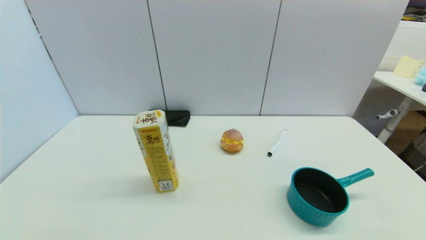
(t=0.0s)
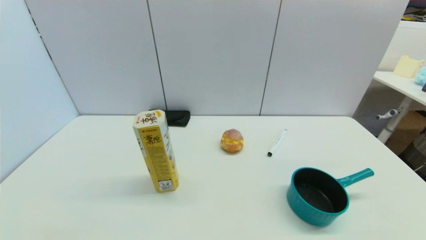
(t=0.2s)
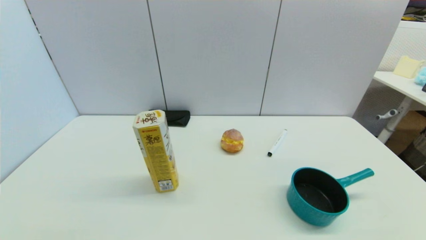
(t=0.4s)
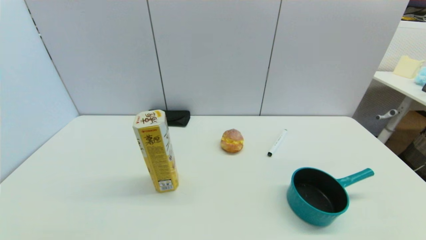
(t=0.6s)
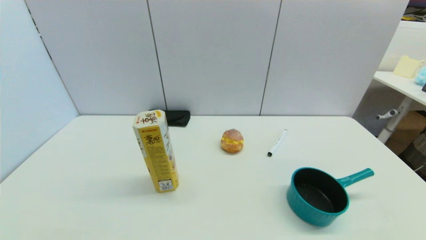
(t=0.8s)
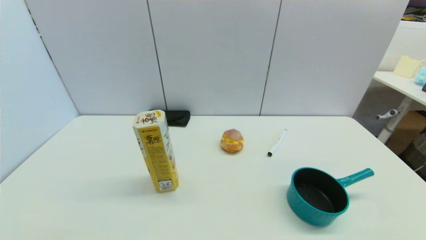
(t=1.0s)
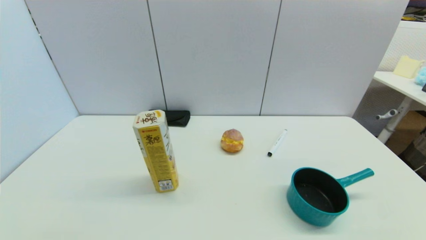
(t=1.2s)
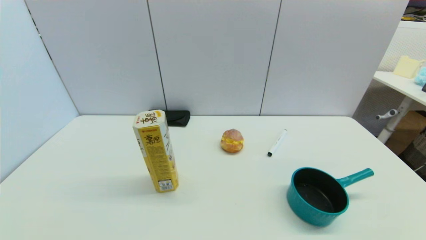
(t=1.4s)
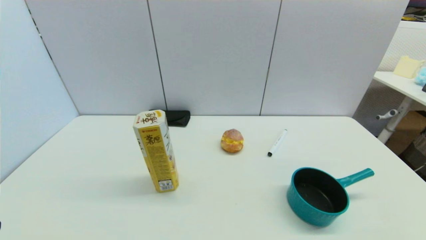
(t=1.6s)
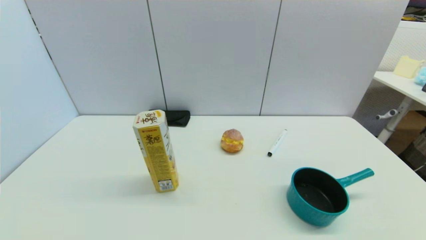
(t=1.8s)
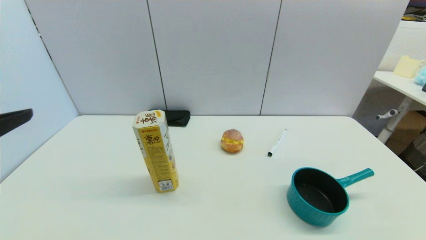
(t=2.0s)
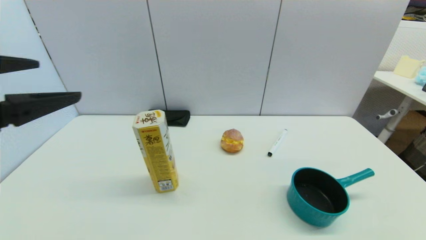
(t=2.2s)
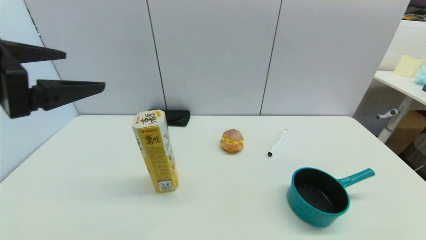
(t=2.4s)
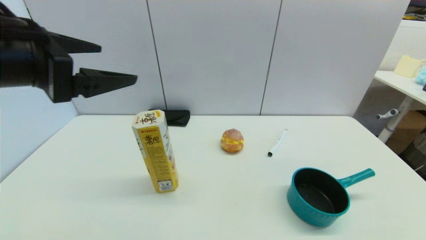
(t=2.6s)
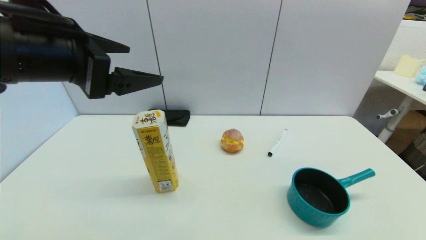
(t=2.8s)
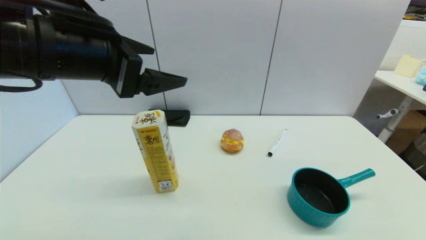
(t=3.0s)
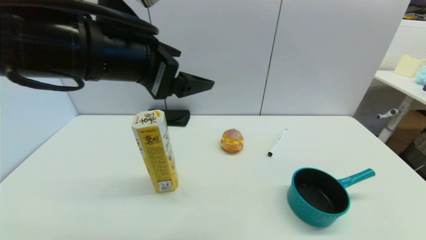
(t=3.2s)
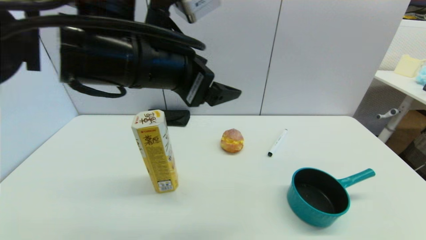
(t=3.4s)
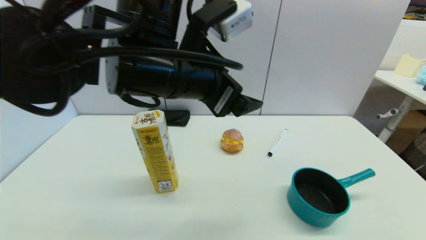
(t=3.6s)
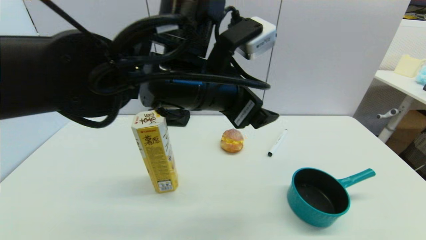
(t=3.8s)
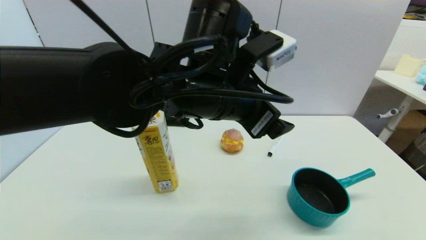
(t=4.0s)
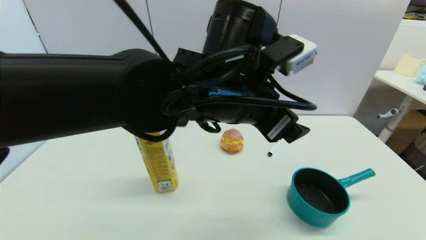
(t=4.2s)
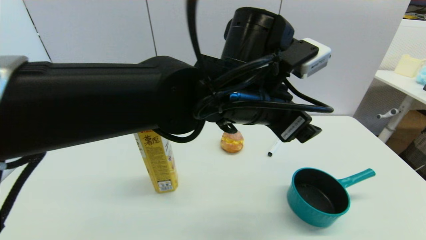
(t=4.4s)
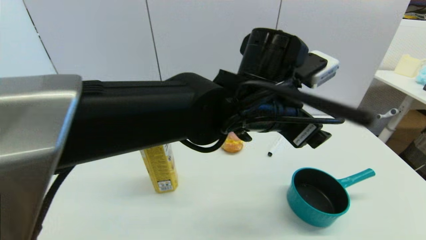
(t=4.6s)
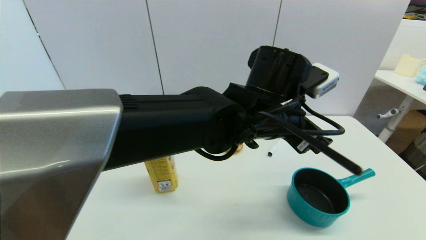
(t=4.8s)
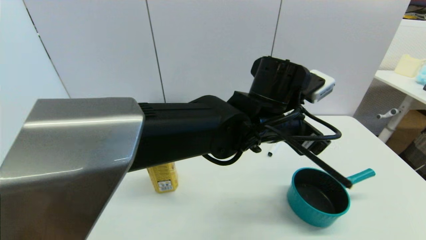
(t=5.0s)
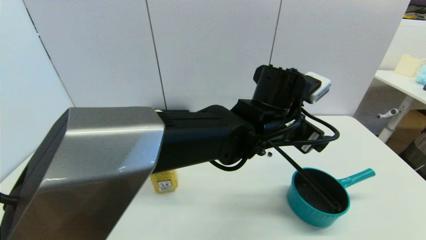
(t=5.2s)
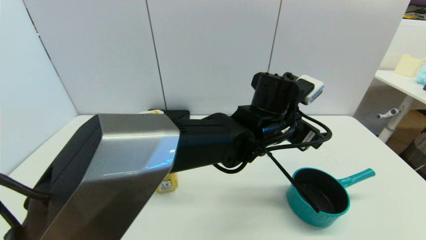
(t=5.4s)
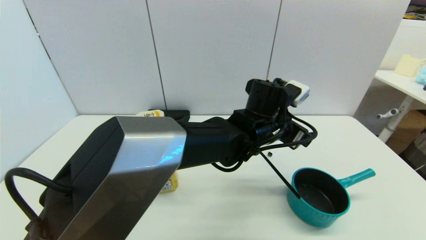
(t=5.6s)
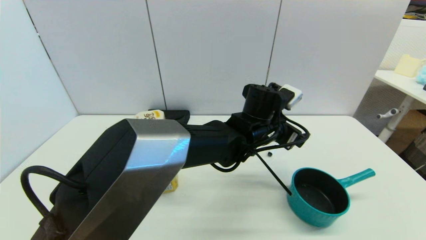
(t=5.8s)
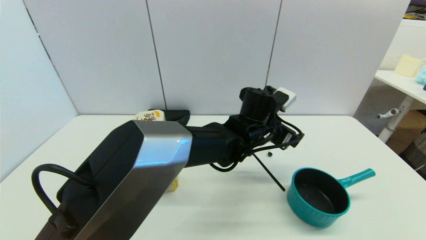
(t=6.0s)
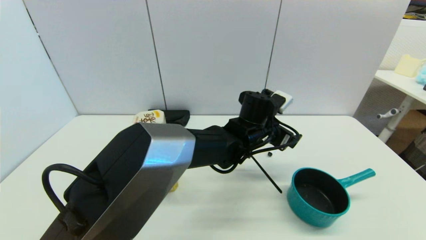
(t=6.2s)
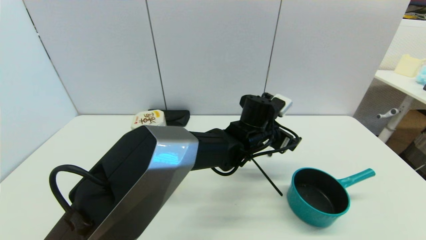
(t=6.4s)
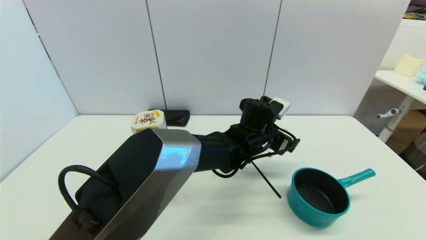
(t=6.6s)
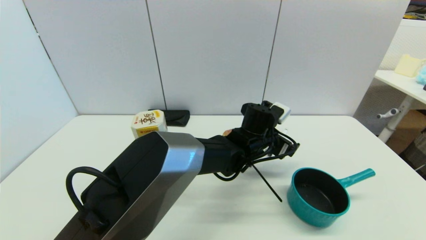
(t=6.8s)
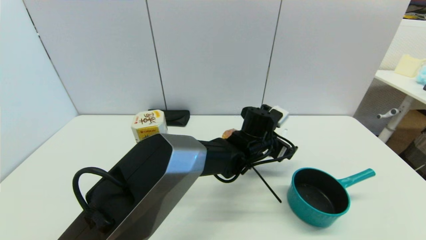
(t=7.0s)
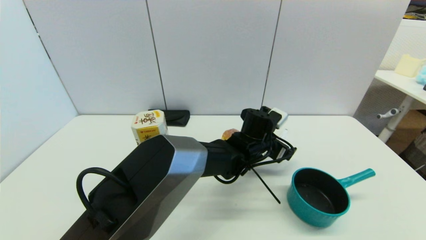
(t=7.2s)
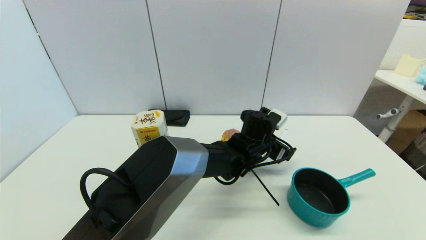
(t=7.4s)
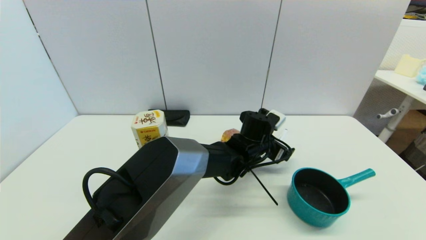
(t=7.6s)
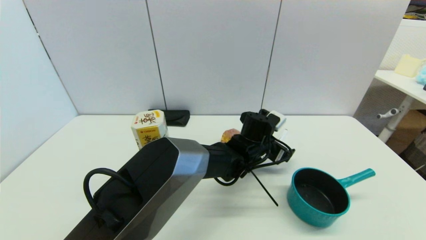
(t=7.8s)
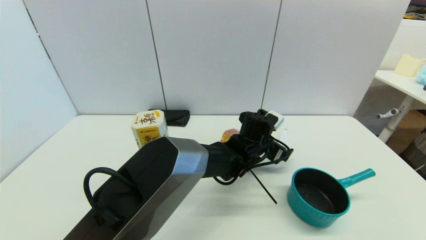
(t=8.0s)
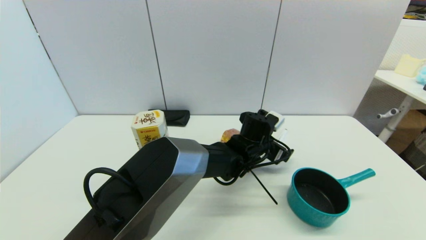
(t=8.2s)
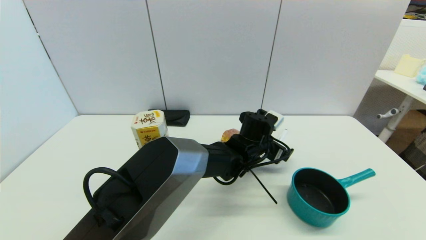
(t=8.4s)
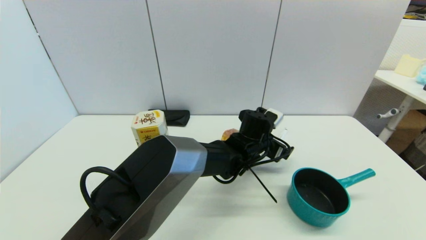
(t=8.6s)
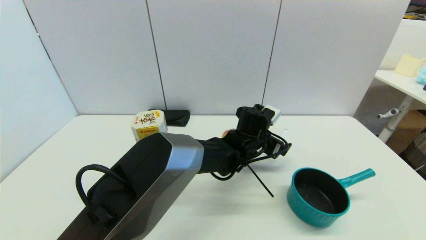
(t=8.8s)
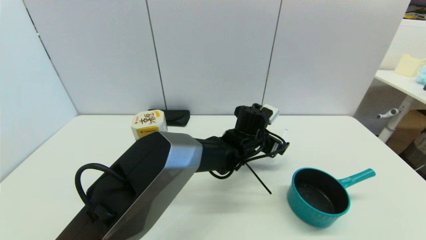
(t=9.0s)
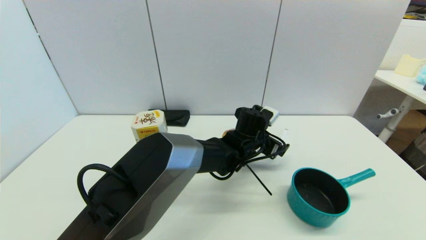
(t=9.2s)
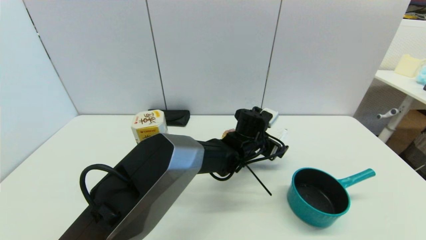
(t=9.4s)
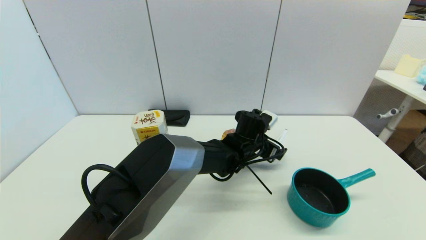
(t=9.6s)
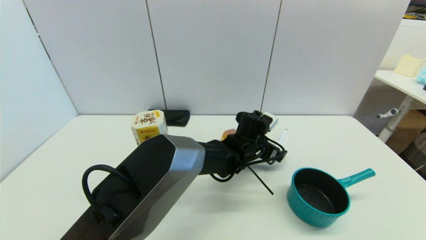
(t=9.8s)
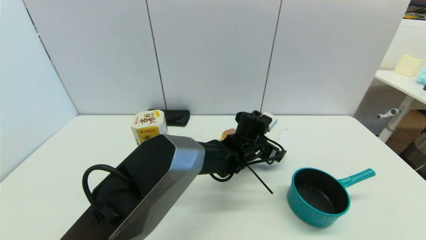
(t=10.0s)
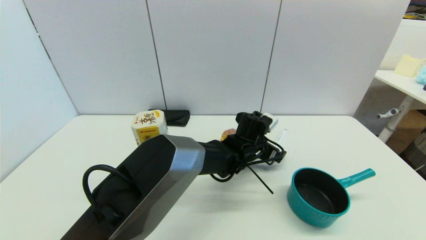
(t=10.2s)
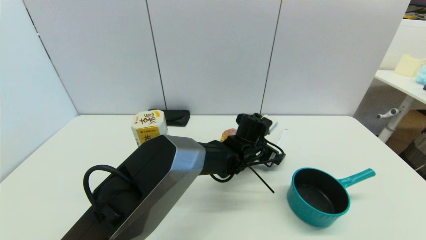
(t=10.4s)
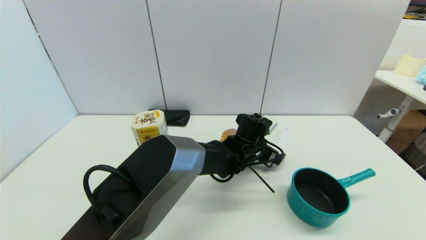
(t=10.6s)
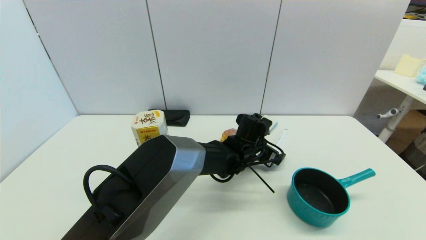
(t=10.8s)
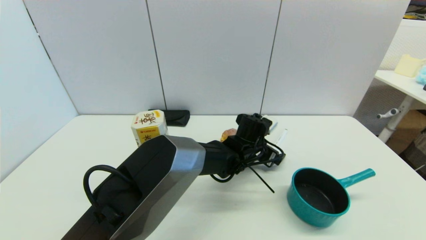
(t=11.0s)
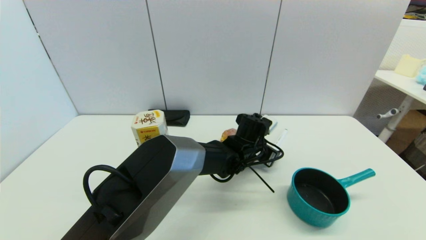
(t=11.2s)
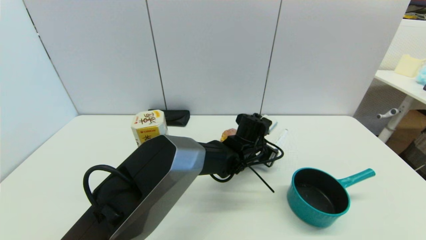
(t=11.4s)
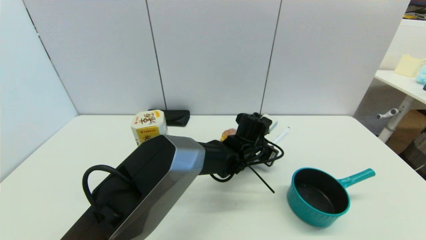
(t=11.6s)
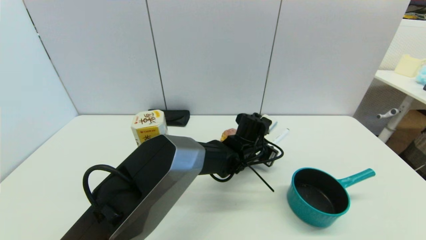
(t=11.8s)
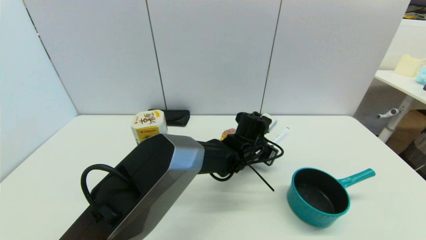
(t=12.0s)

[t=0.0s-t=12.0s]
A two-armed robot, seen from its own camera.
Task of the whole recording: put the black marker in the designated position.
Step, t=1.6s to t=11.6s: Grasp the Marker pen with left gripper.
t=1.6s to t=3.0s: The left gripper shifts some 30 cm forward, upward and to the right.
t=3.0s to t=4.4s: The left gripper goes some 20 cm to the right.
t=4.4s to t=6.0s: The left gripper is displaced downward and forward by approximately 15 cm.
t=6.0s to t=7.6s: The left gripper moves downward, about 5 cm.
t=7.6s to t=10.4s: The grippers stay close to where they were, moving slightly.
t=10.4s to t=12.0s: The left gripper closes.

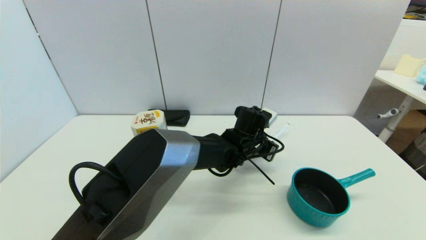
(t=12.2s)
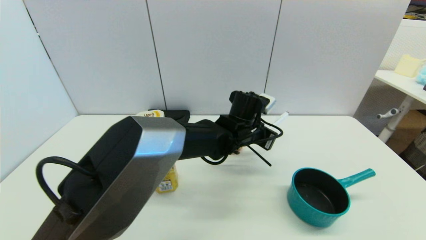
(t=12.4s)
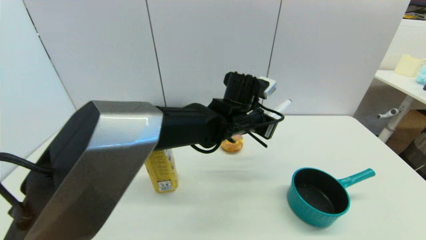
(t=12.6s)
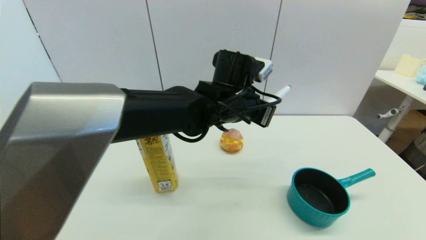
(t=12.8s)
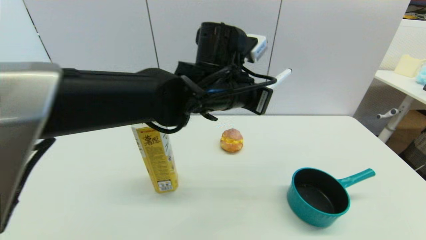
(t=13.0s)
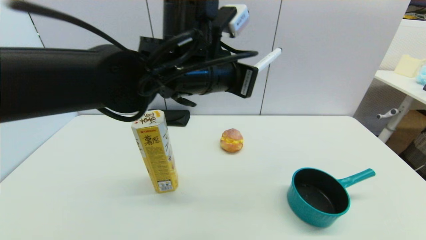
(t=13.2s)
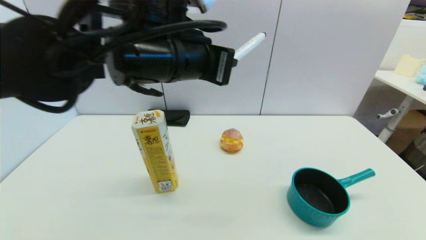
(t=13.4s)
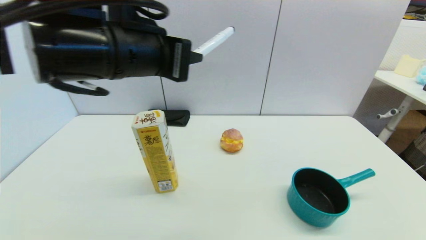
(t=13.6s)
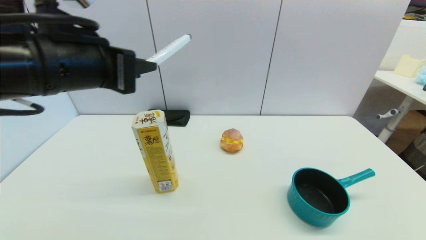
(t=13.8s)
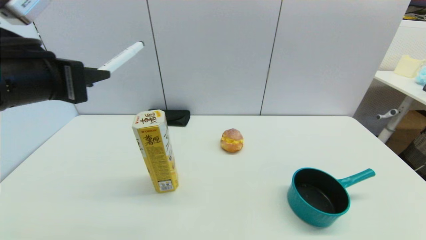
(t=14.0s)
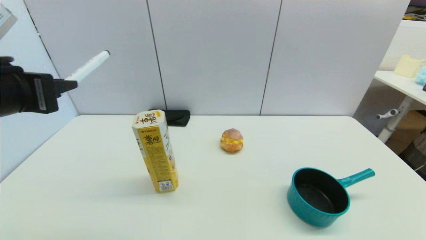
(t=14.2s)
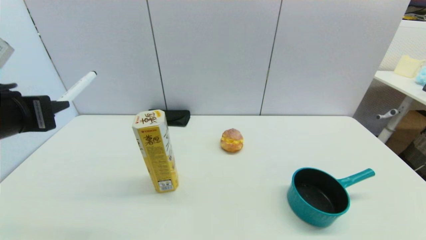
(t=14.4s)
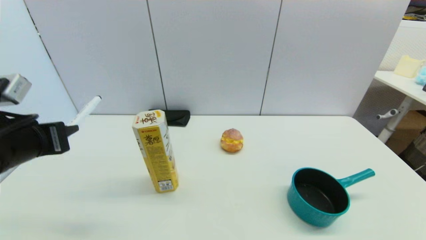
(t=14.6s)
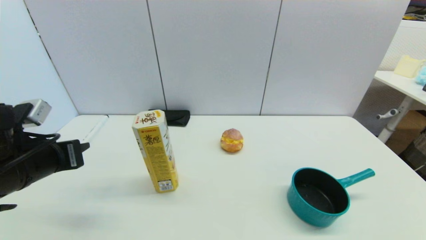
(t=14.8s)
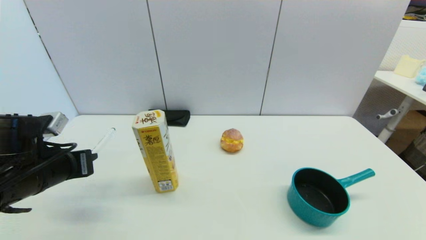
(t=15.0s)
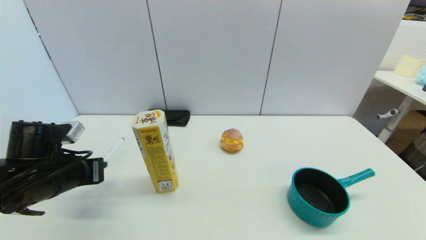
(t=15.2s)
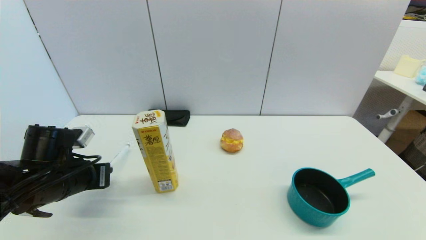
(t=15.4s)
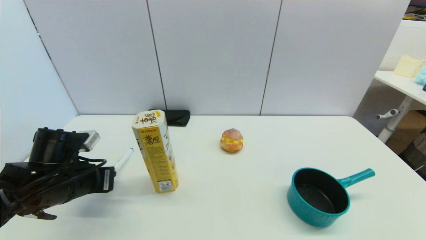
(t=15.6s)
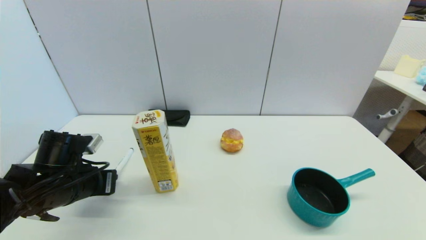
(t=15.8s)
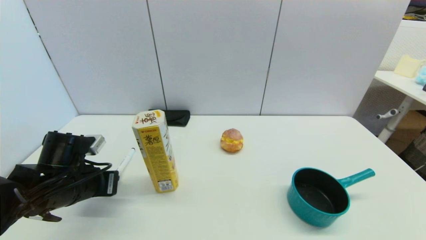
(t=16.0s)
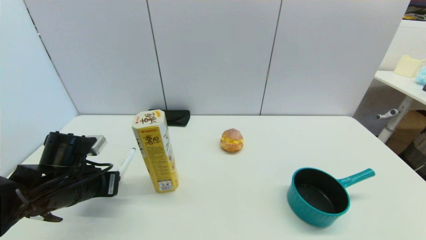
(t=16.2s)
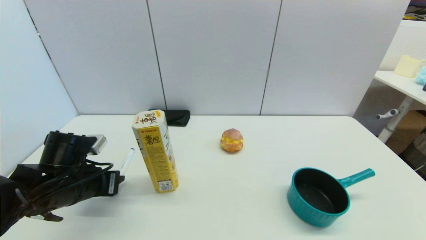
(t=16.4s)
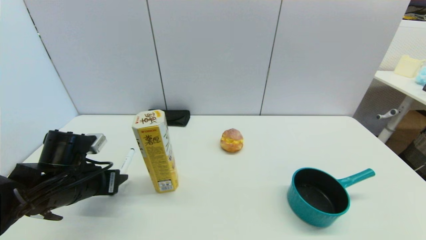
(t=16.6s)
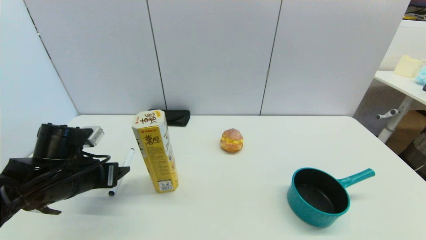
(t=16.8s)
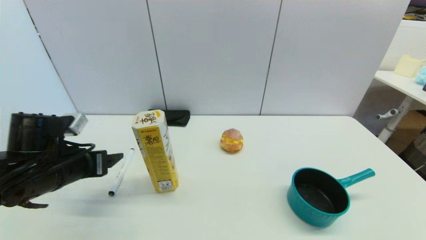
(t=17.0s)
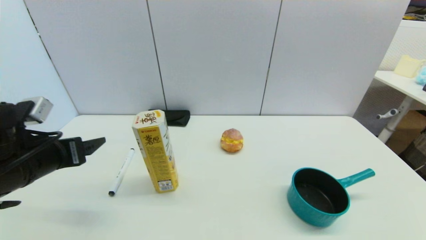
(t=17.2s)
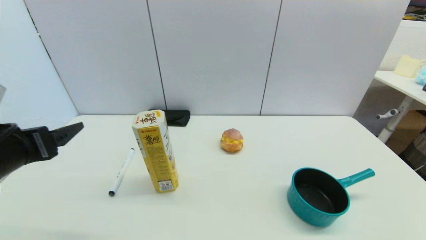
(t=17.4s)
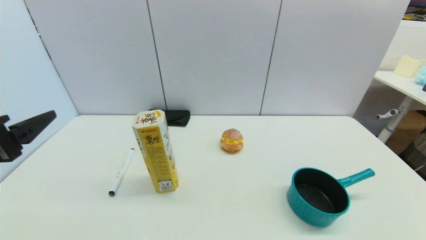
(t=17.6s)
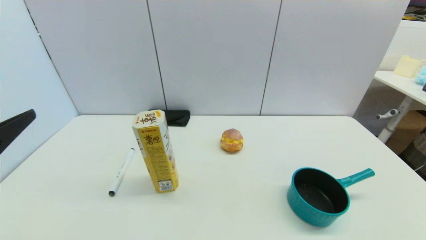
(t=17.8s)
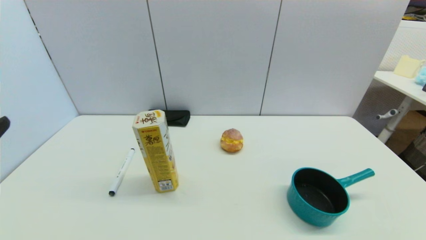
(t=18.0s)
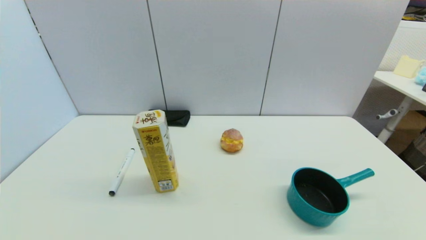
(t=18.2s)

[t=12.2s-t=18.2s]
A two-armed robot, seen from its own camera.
Task of the whole recording: put the black marker in the designated position.
Step, t=12.2s to t=16.4s: Place the Marker pen on the table with left gripper.
t=12.2s to t=13.8s: The left gripper moves to the left, upward and backward, some 40 cm.
t=13.8s to t=15.2s: The left gripper goes roughly 20 cm downward and to the left.
t=15.2s to t=16.6s: The left gripper opens up.
t=16.6s to t=18.2s: The left gripper is displaced backward and upward by some 25 cm, and opens its fingers.
